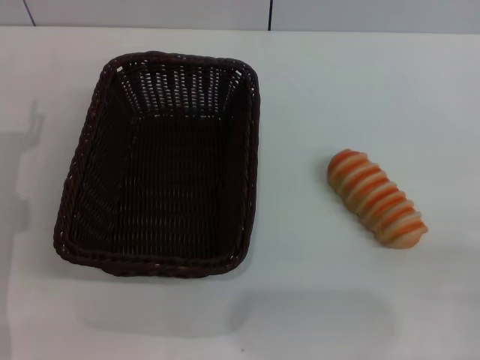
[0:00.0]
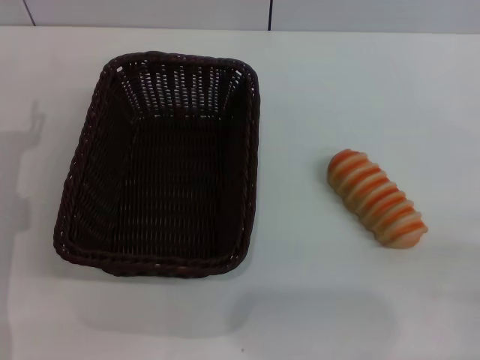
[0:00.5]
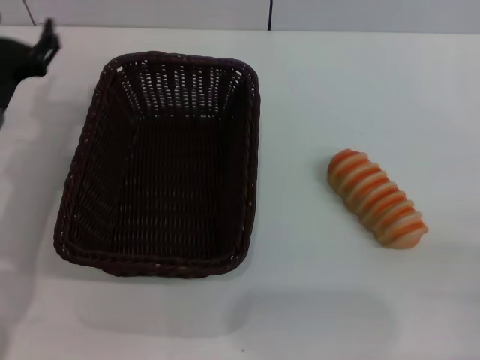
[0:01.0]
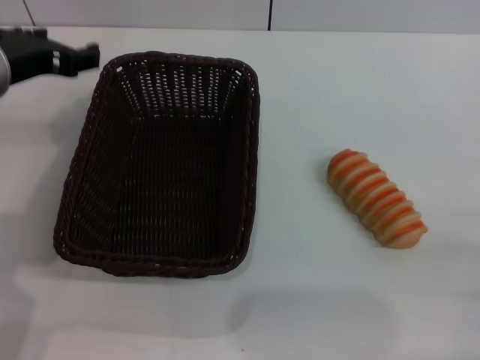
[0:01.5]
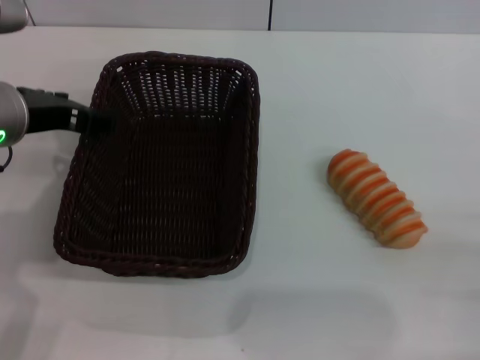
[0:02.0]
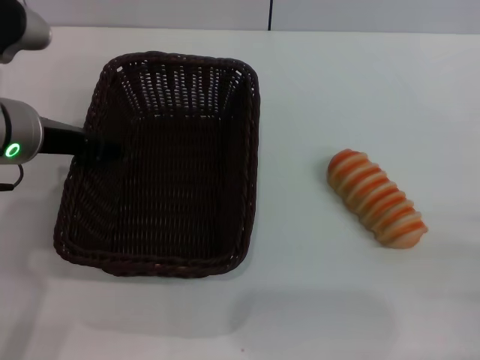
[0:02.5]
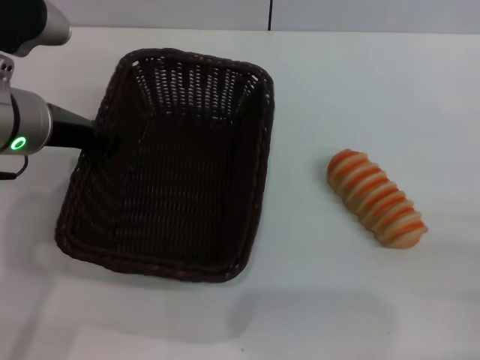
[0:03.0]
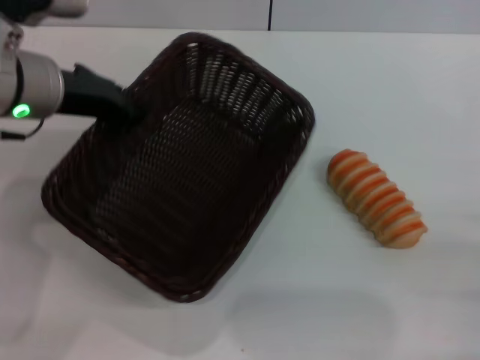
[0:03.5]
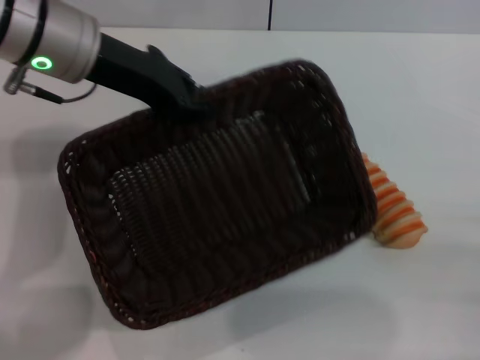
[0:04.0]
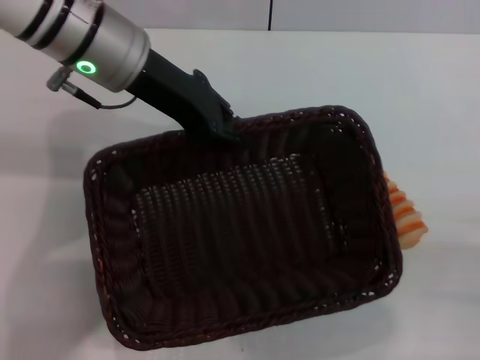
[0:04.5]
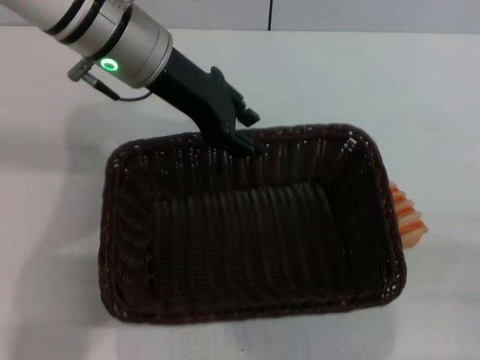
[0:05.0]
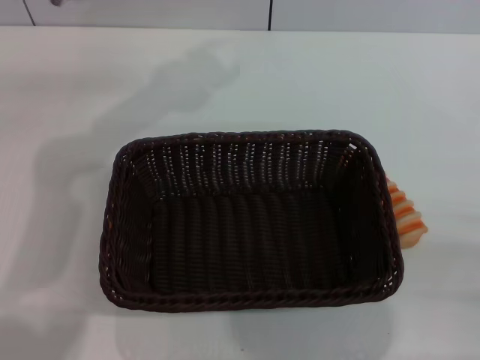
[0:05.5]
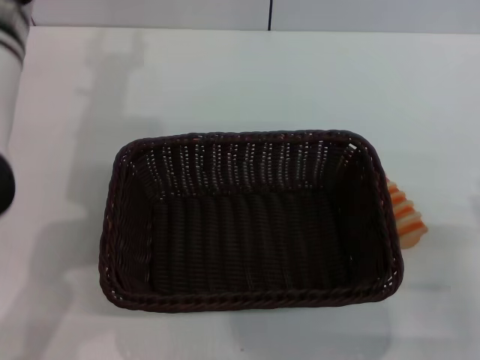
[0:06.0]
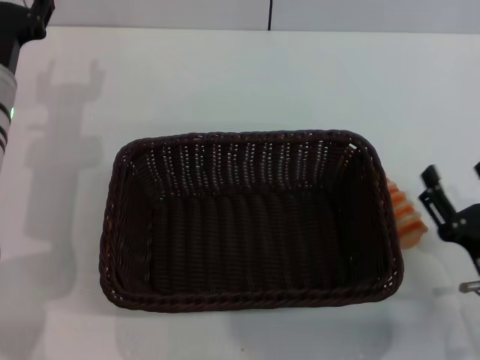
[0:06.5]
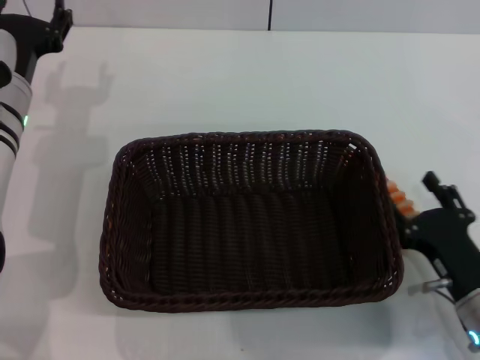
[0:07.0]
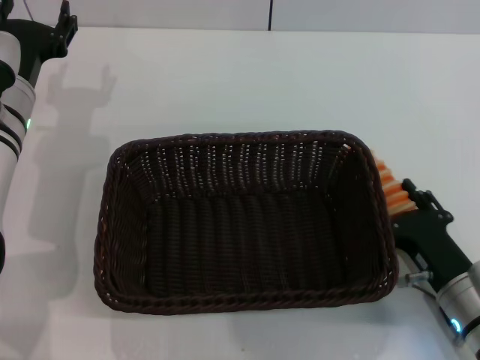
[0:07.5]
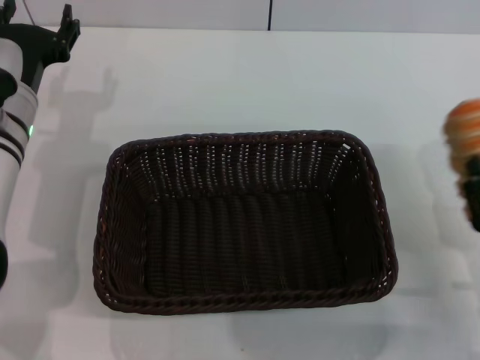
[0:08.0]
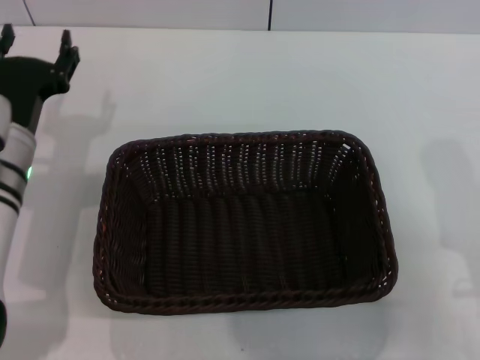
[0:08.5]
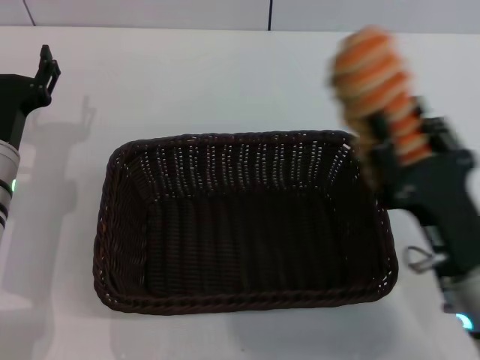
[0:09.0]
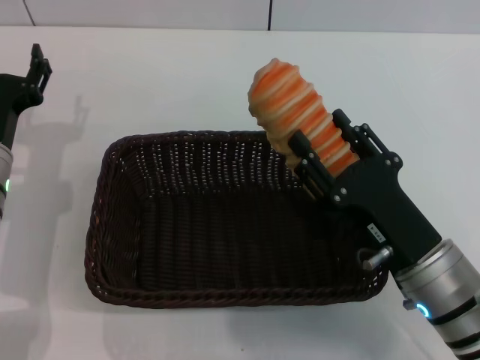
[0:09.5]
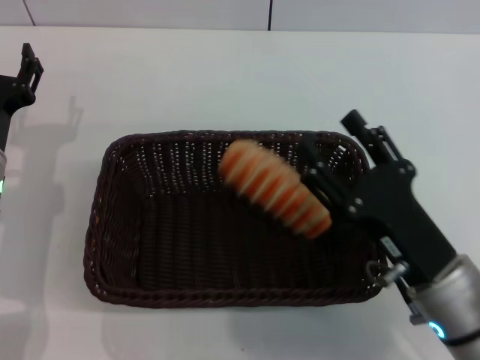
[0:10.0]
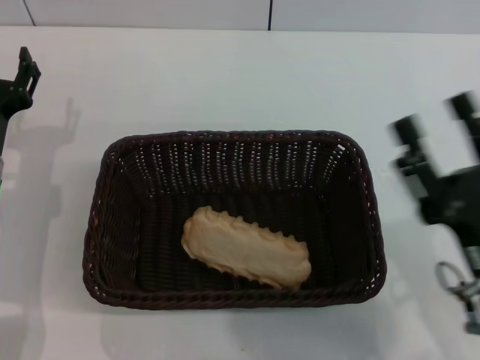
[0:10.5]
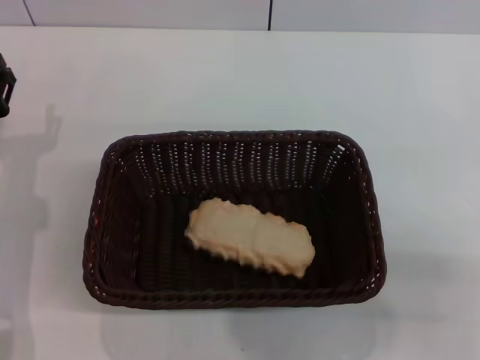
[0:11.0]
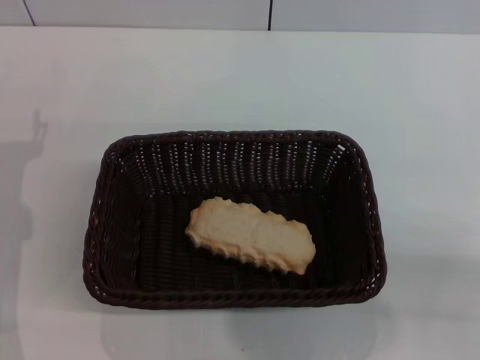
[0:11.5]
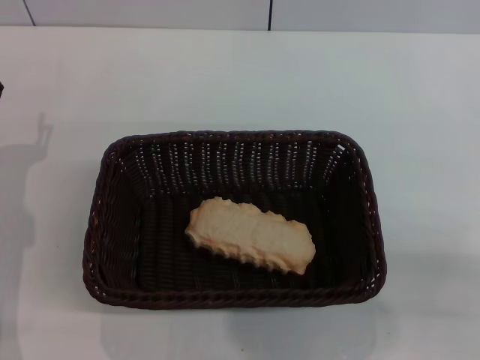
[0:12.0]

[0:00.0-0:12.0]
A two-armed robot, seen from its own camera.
Step, 0:00.0 to 0:03.5: Pick up the dark basket with the left gripper.
Step, 0:04.0 to 0:05.0: Place the dark basket in the center of view with the left gripper.
Step, 0:05.5 to 0:07.5: Pick up the long bread with the right gripper.
Step, 0:08.5 to 0:10.0: Place the long bread into the light basket with the right gripper.
0:00.0 to 0:02.0: The left gripper shifts some 15 cm upward and to the right.
0:02.0 to 0:04.0: The left gripper is displaced forward and upward by roughly 5 cm, and closes.
0:04.0 to 0:06.0: The left gripper opens.
0:06.0 to 0:08.0: The left gripper moves downward, about 10 cm, while the right gripper closes.
0:08.0 to 0:10.0: The left gripper is displaced backward by some 5 cm. The right gripper goes approximately 10 cm to the left, and closes, then reopens.
0:10.0 to 0:12.0: The right gripper is displaced to the right and backward by some 15 cm.
